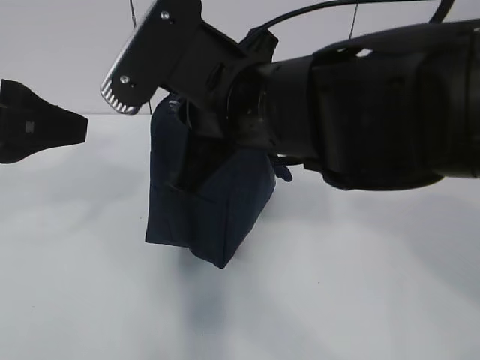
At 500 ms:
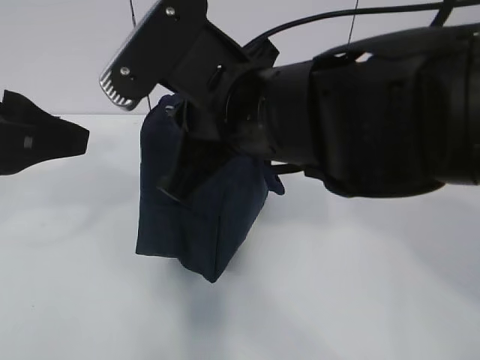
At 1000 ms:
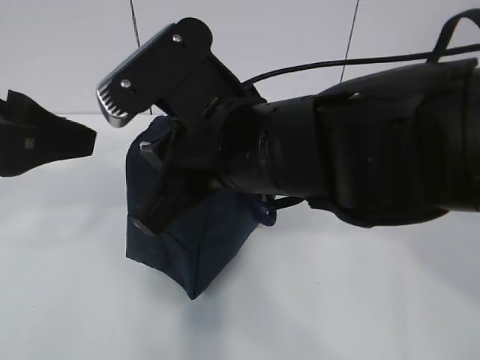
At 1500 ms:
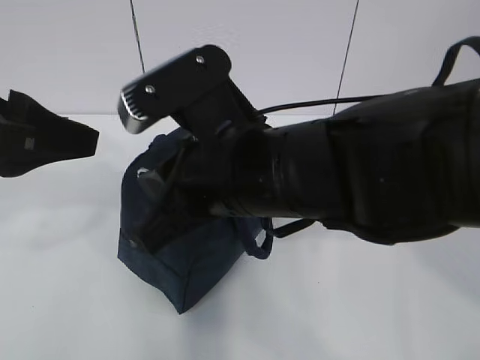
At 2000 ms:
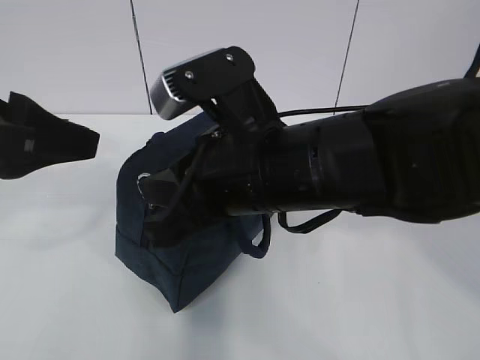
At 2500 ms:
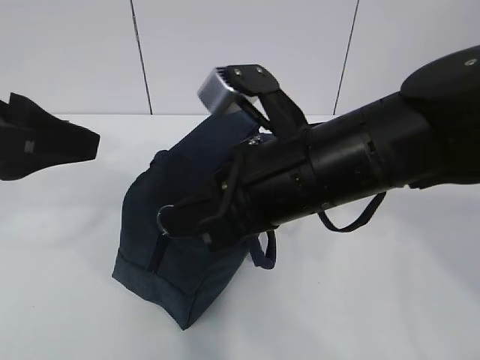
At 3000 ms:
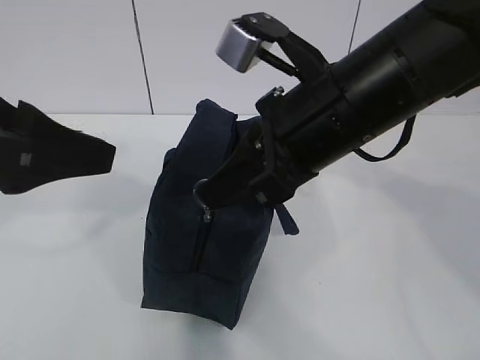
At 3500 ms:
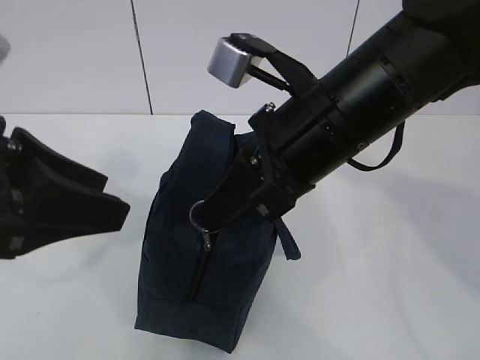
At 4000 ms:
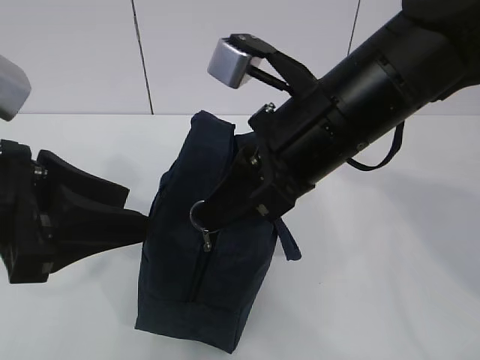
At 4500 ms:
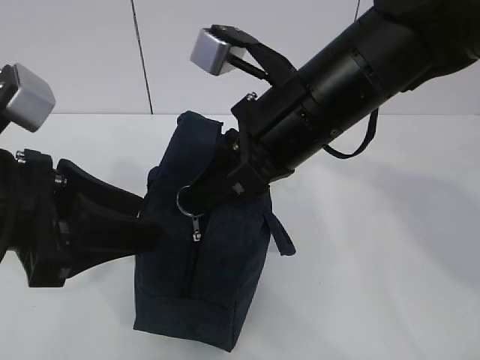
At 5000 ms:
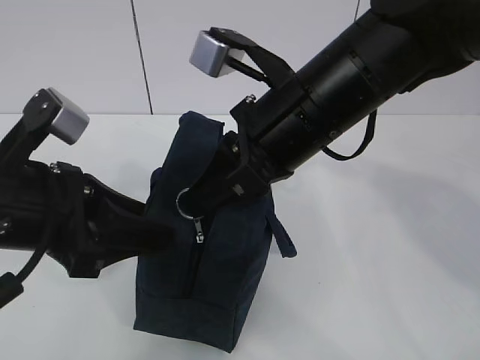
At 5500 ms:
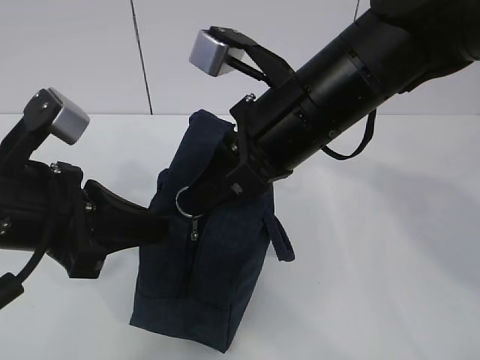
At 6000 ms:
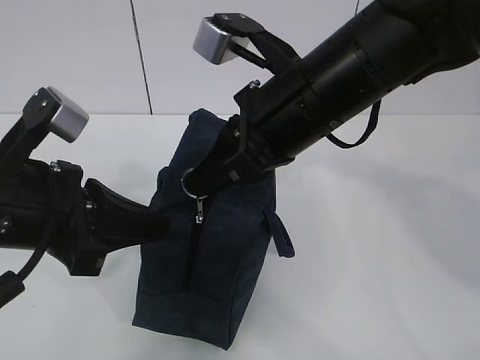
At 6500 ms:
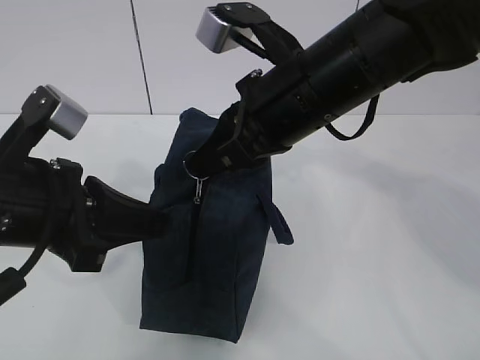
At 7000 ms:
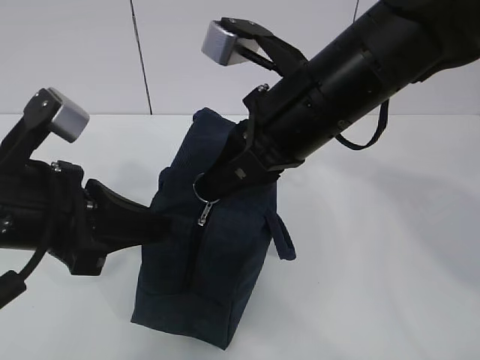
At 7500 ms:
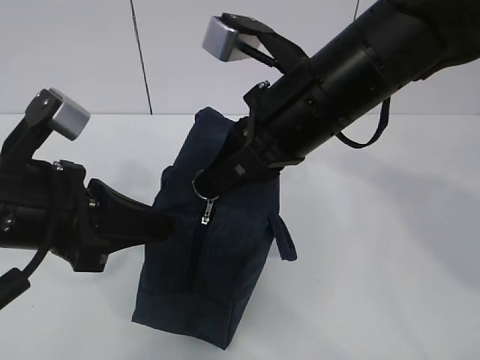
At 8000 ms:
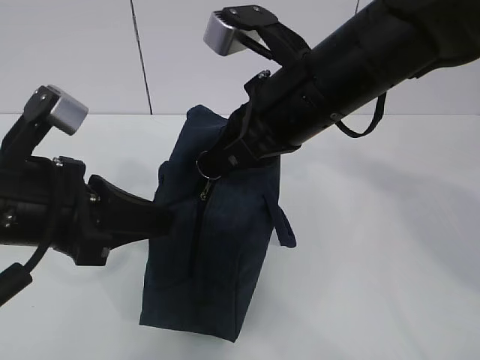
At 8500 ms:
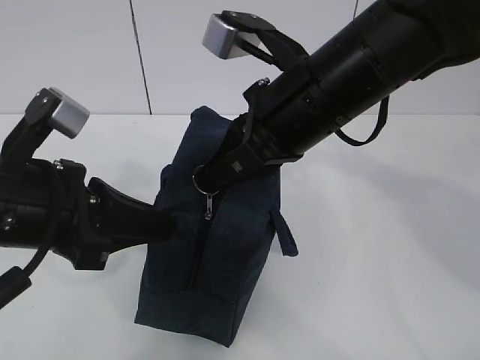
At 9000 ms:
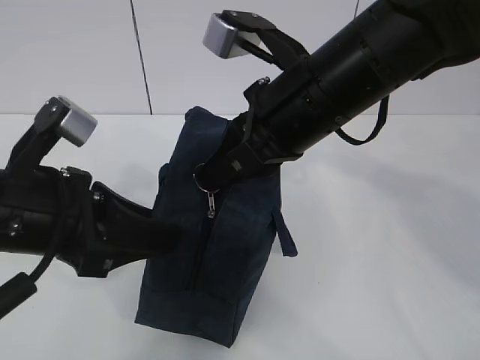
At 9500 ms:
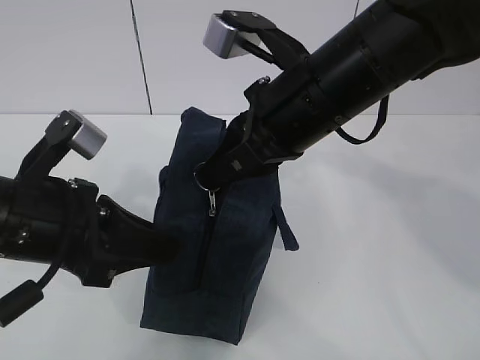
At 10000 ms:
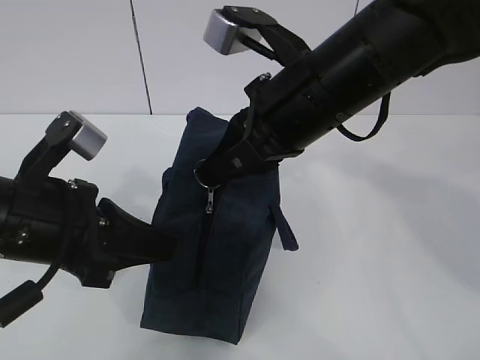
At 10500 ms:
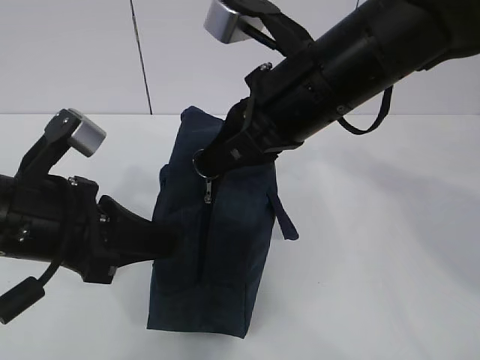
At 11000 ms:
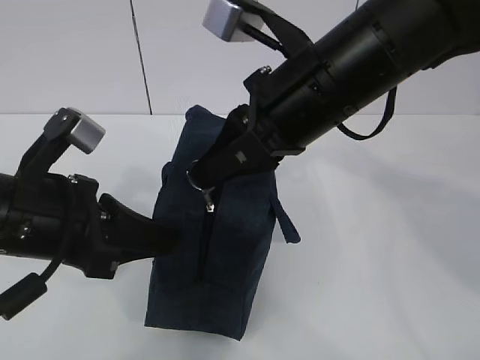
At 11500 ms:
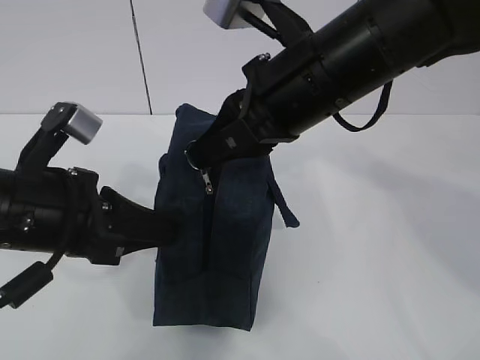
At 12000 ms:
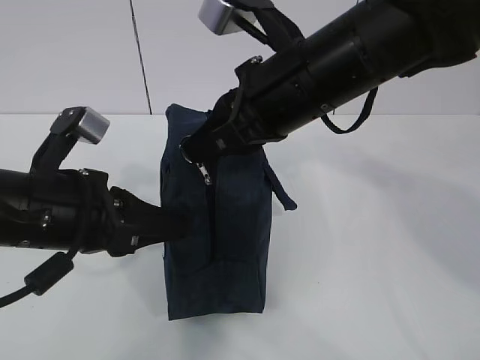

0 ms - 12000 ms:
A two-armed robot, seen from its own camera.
2000 ms - 4000 ms: The left gripper ends up roughly 5 cm from where it was. Meanwhile the right gripper shifts approximately 5 cm to the right.
4000 ms - 6000 ms: The left gripper closes.
6000 ms - 8000 ms: The grippers make only small movements.
8000 ms - 10000 ms: The left gripper opens and closes again.
10000 ms - 12000 ms: The grippers stay close to where they were, moving slightly.

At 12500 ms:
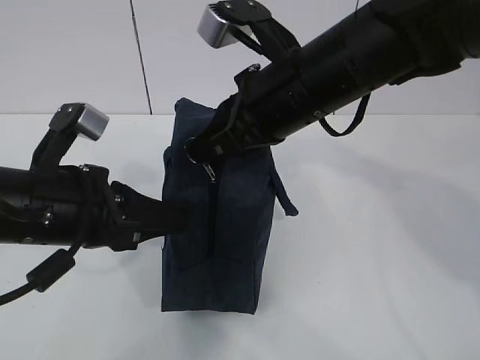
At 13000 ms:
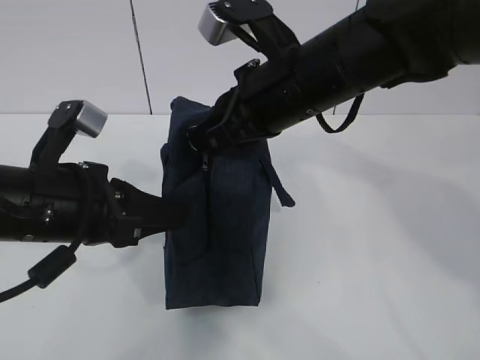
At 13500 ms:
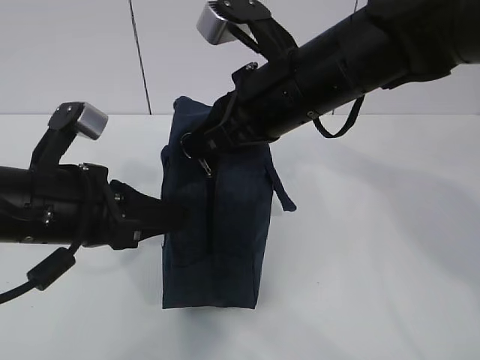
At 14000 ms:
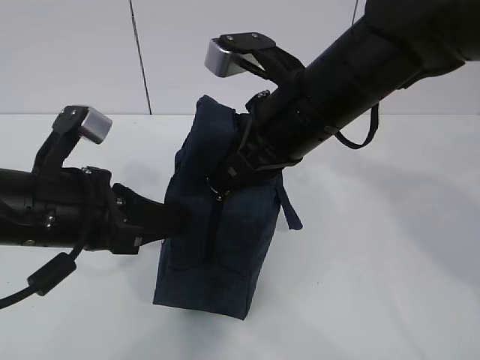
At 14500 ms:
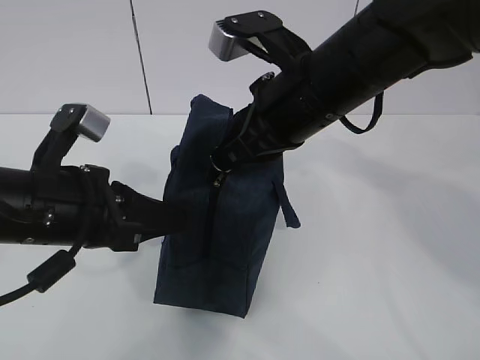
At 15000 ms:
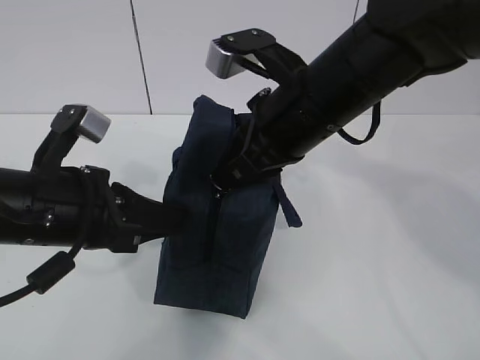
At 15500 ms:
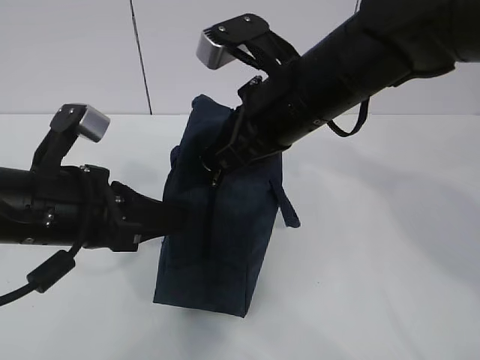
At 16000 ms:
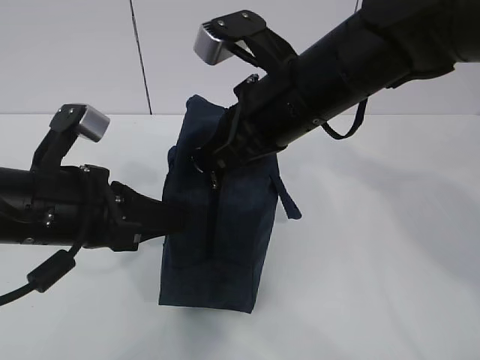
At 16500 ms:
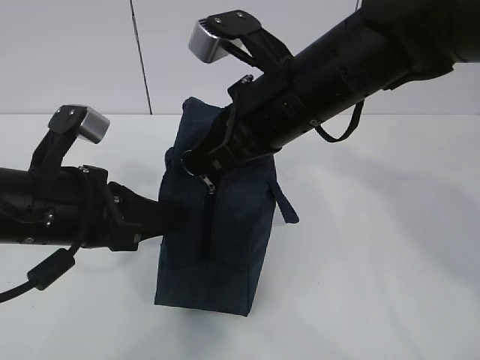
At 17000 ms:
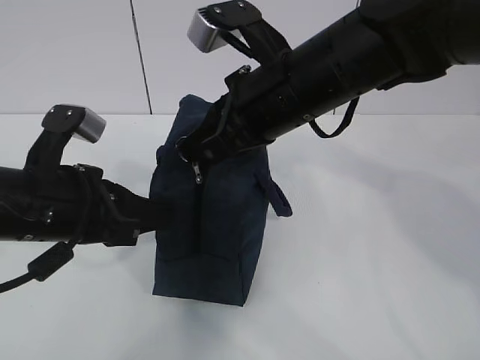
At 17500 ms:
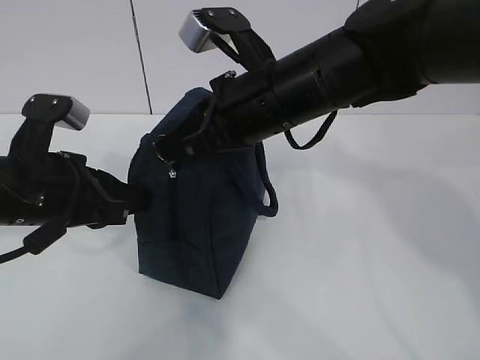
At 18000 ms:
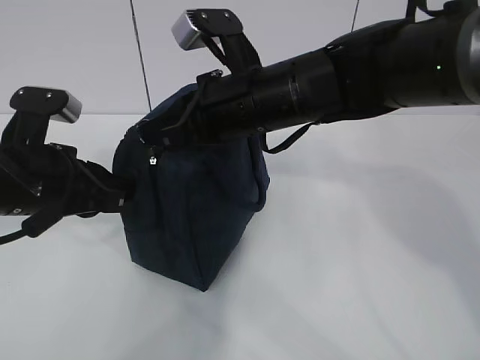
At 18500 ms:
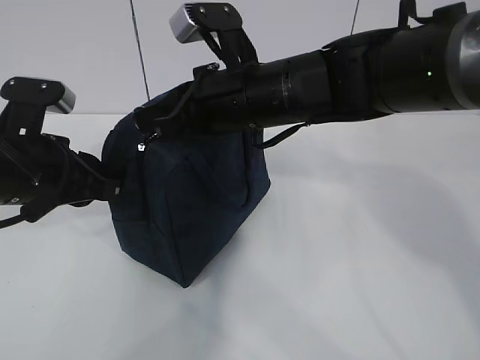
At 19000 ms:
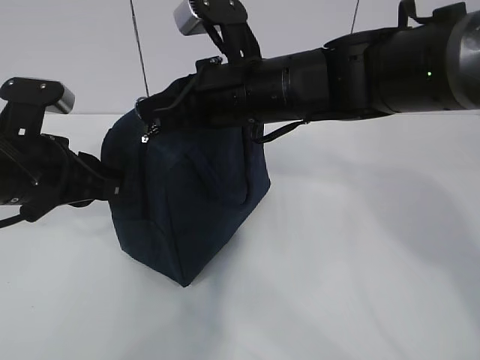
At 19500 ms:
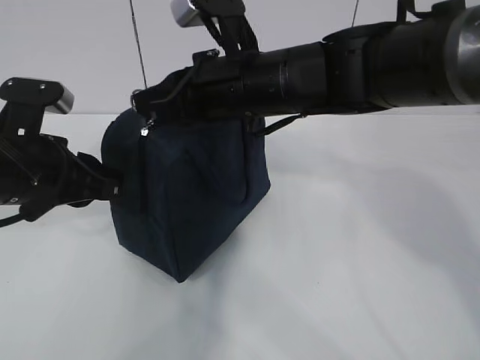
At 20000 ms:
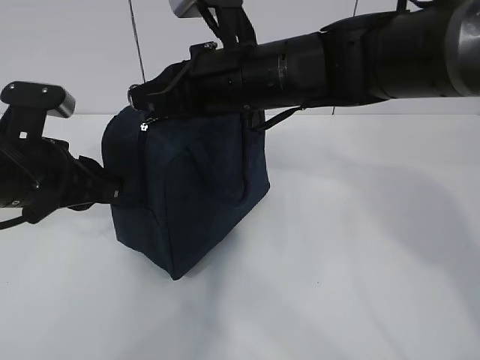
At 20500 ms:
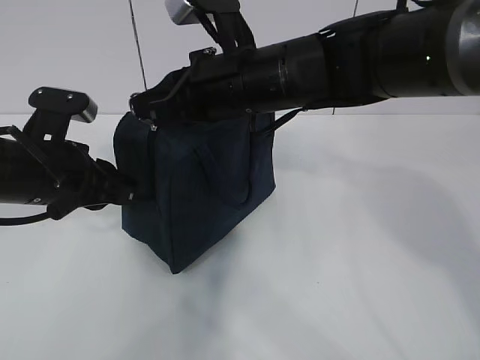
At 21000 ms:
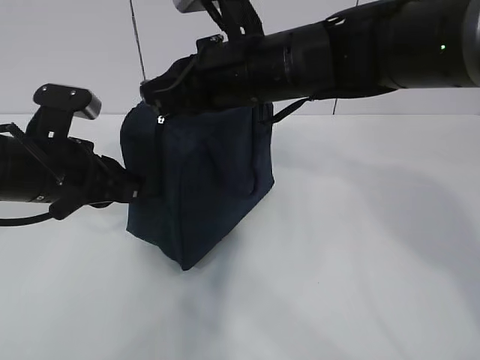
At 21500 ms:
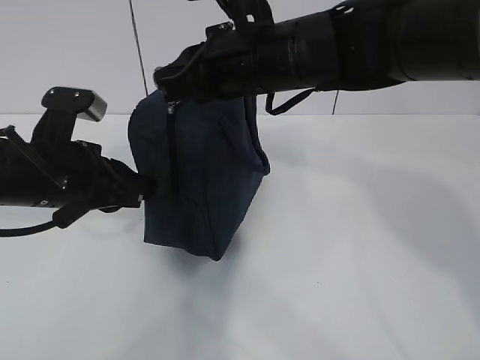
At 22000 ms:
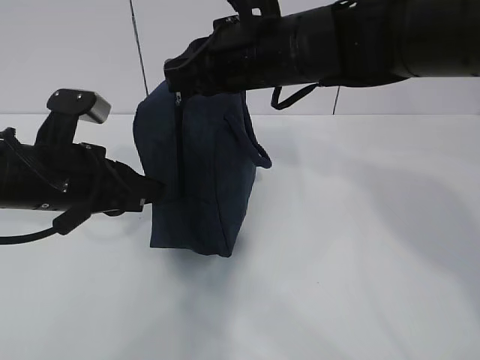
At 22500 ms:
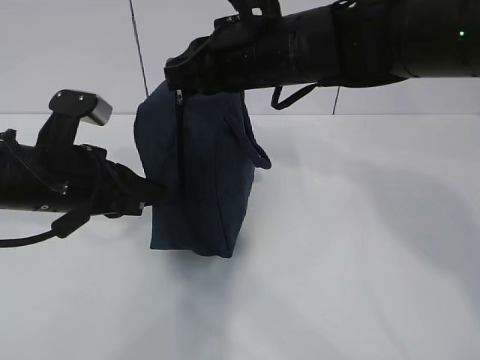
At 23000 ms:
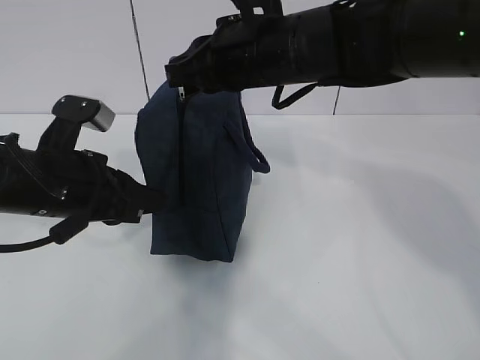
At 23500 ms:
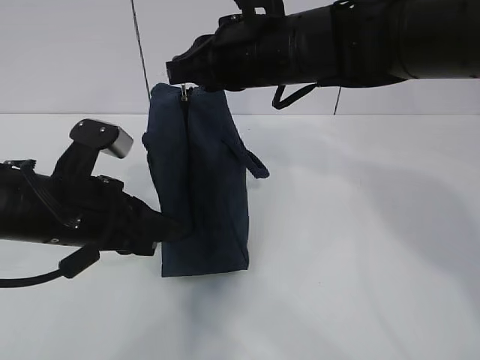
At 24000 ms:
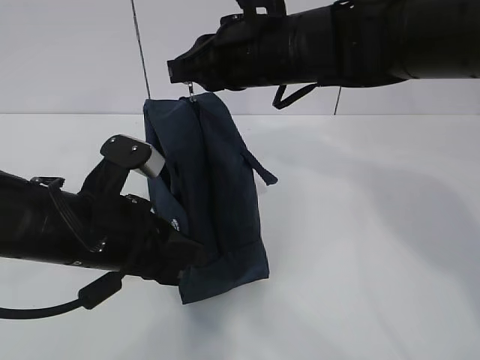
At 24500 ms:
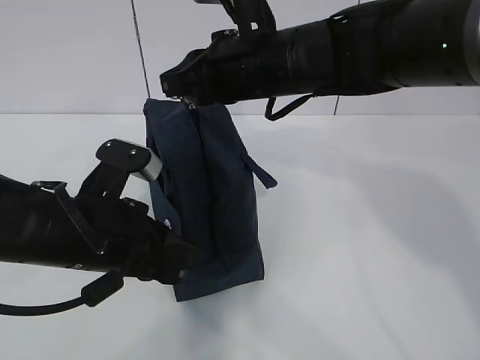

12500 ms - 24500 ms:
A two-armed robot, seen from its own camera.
Step, 15000 ms - 21000 ms: Pull the zipper with your right hand.
Step, 21500 ms - 22000 ms: Grab the lunch bag with your left hand.
12500 ms - 16500 ms: The grippers stay close to where they were, moving slightly.
16500 ms - 18500 ms: The left gripper ends up roughly 5 cm from where it was. The right gripper changes place by about 5 cm.
18500 ms - 22500 ms: The grippers make only small movements.
22500 ms - 24500 ms: The left gripper changes place by approximately 5 cm.

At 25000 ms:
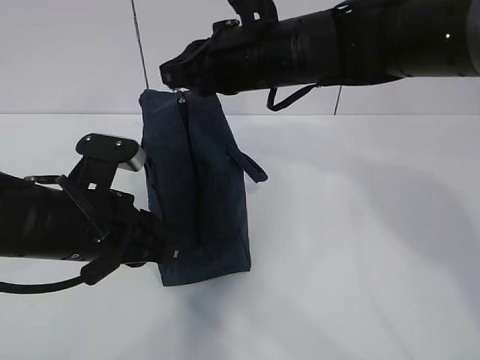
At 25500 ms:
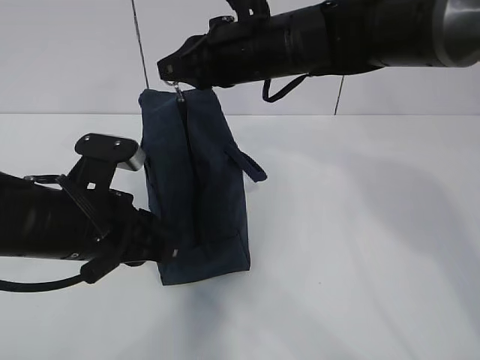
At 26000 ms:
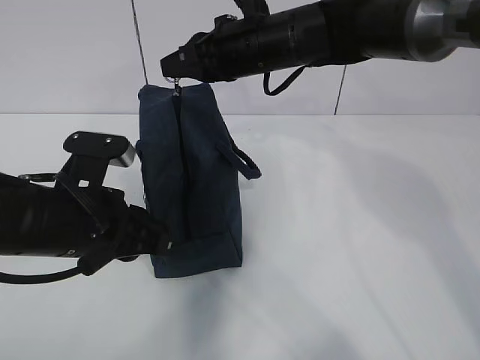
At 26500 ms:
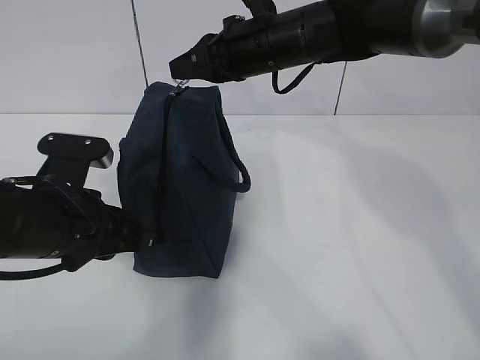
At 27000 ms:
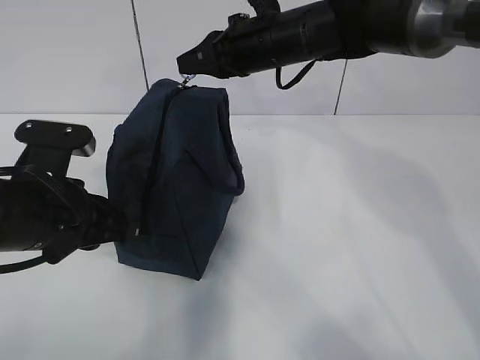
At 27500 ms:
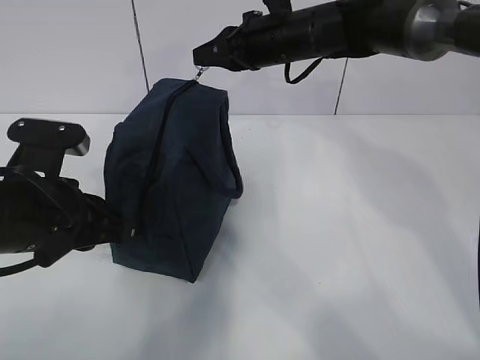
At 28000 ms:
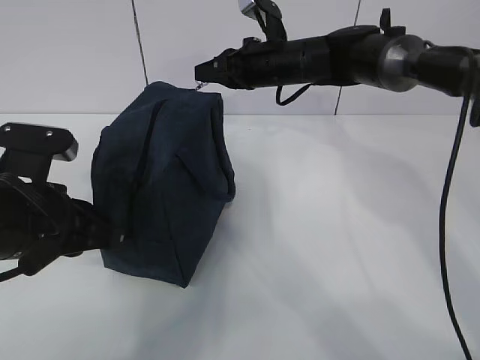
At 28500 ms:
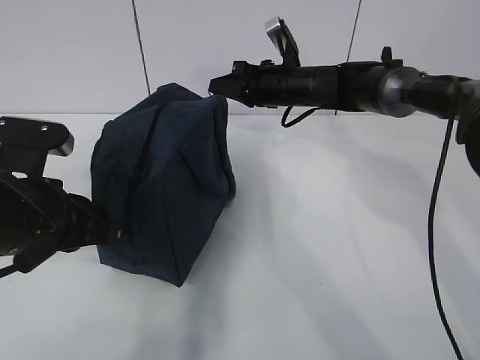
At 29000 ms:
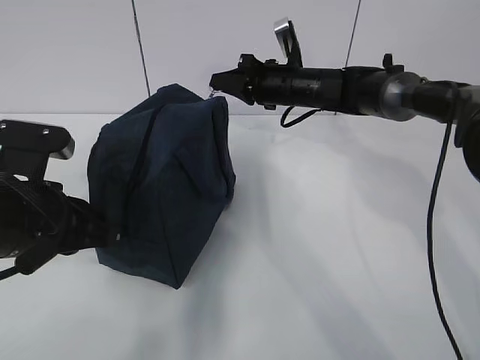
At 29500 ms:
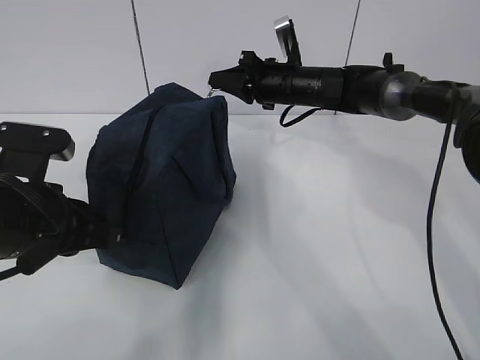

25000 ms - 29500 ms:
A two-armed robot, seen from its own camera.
25000 ms - 27000 ms: The right gripper is displaced forward by approximately 10 cm.
27000 ms - 29500 ms: The right gripper goes some 15 cm downward and forward.
